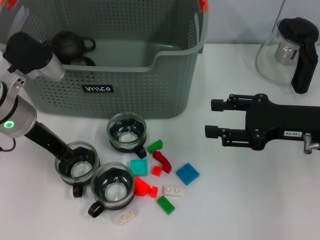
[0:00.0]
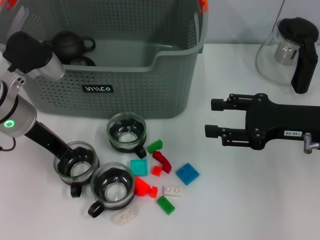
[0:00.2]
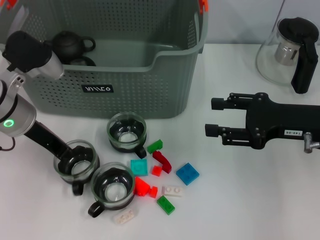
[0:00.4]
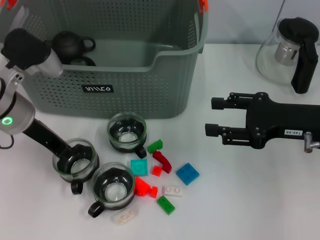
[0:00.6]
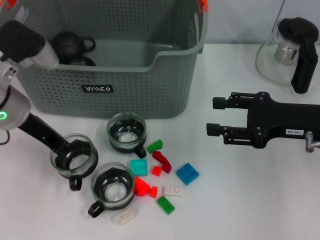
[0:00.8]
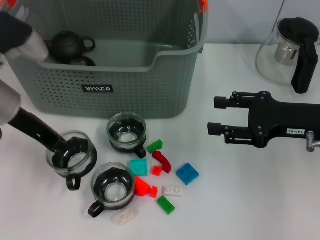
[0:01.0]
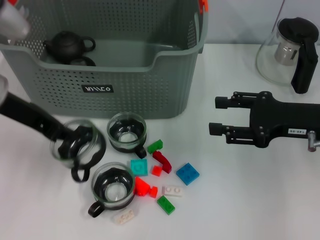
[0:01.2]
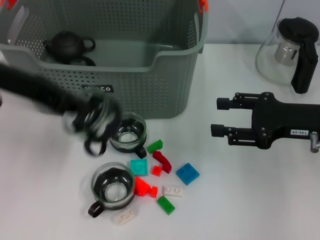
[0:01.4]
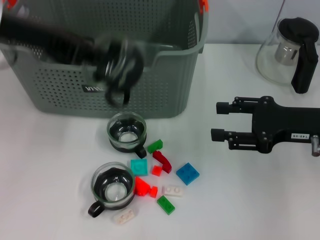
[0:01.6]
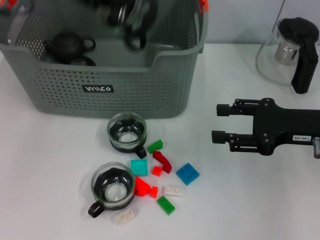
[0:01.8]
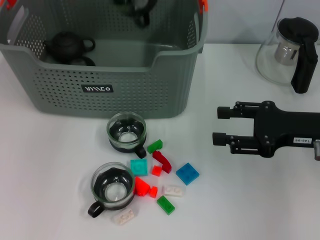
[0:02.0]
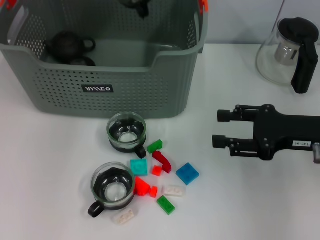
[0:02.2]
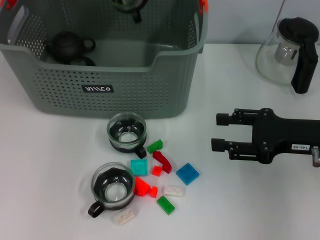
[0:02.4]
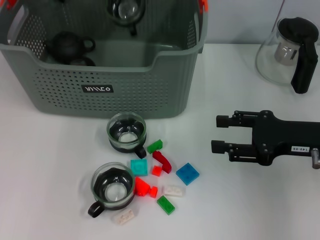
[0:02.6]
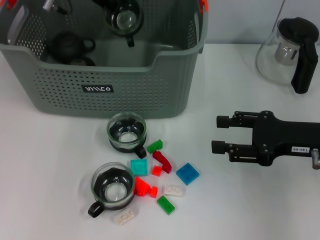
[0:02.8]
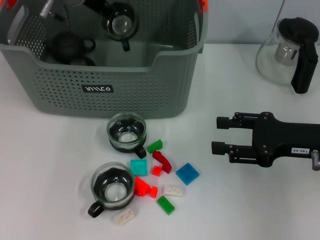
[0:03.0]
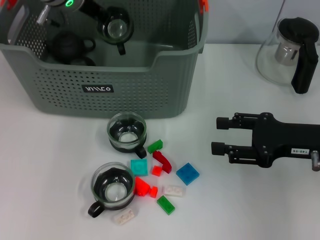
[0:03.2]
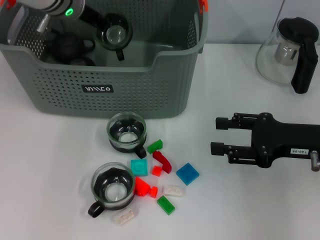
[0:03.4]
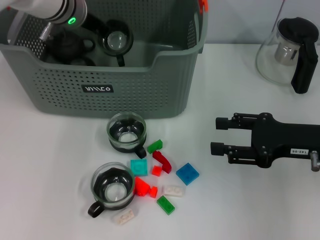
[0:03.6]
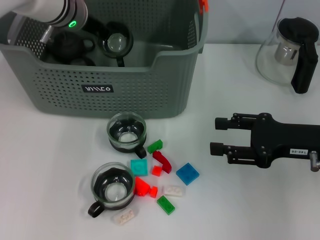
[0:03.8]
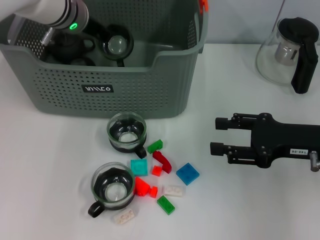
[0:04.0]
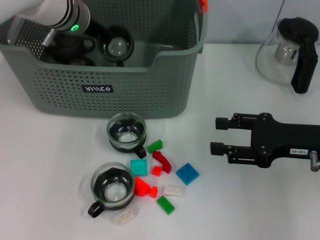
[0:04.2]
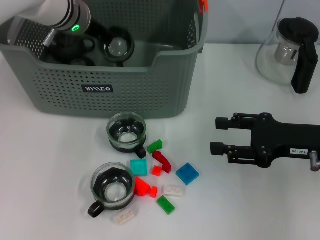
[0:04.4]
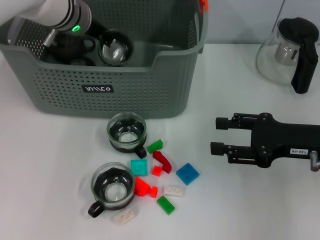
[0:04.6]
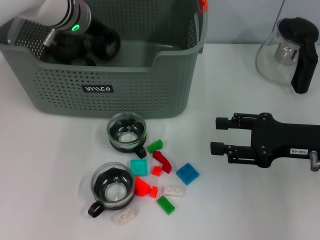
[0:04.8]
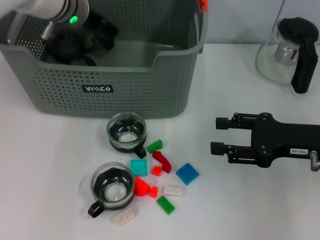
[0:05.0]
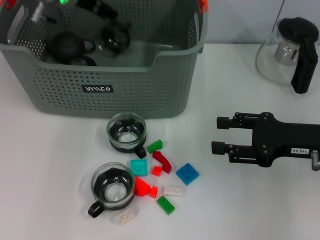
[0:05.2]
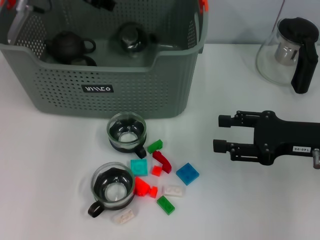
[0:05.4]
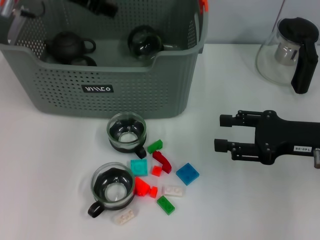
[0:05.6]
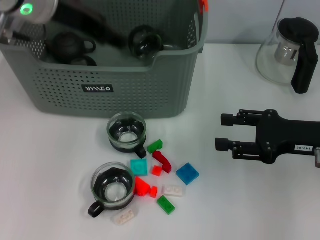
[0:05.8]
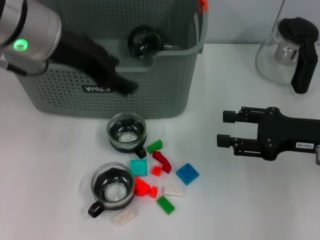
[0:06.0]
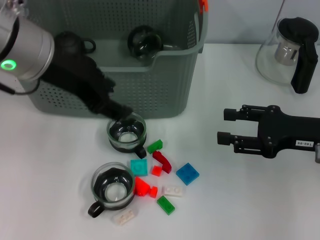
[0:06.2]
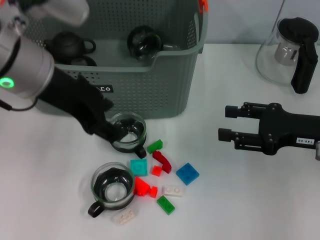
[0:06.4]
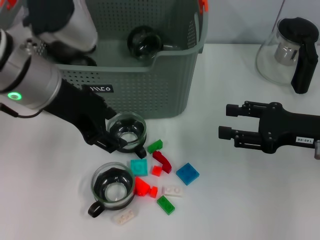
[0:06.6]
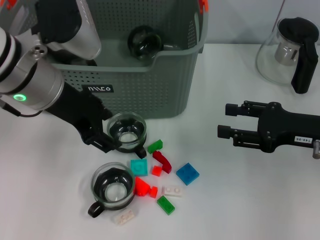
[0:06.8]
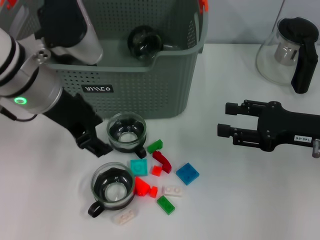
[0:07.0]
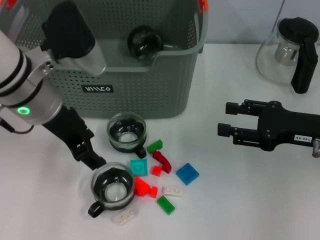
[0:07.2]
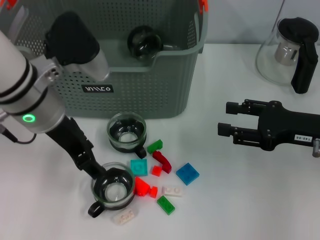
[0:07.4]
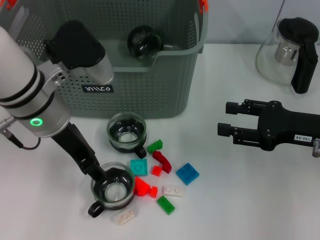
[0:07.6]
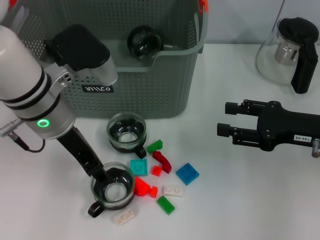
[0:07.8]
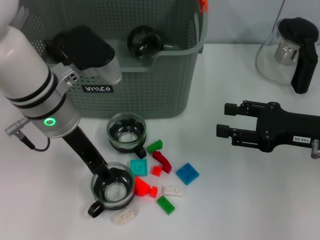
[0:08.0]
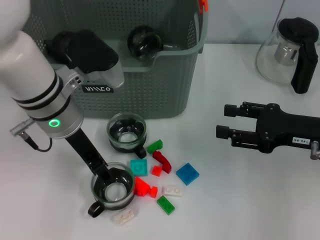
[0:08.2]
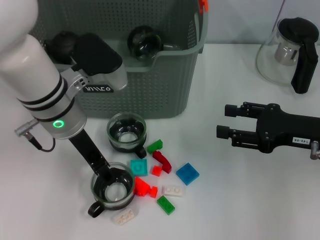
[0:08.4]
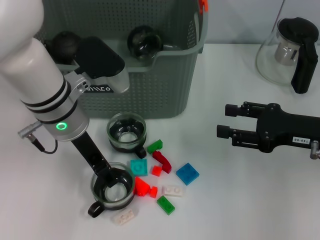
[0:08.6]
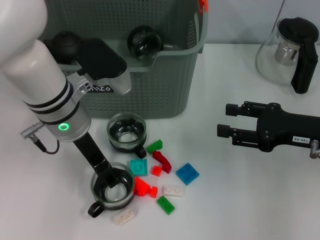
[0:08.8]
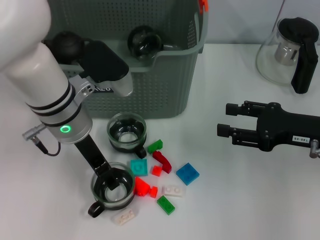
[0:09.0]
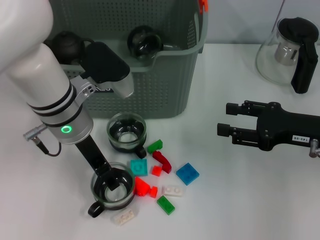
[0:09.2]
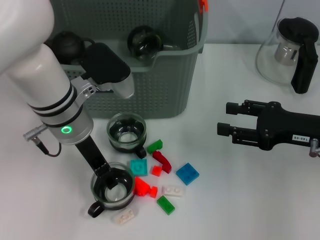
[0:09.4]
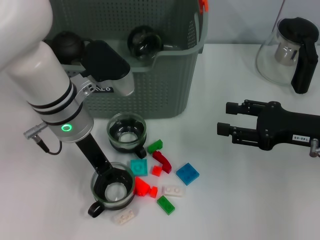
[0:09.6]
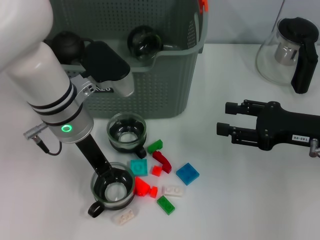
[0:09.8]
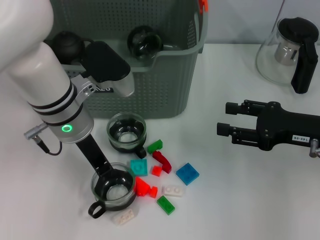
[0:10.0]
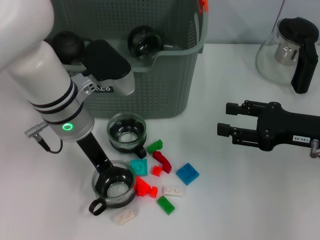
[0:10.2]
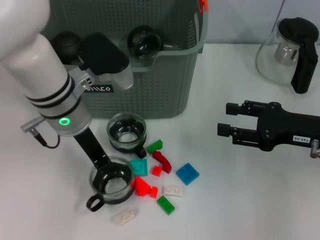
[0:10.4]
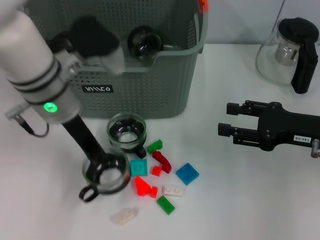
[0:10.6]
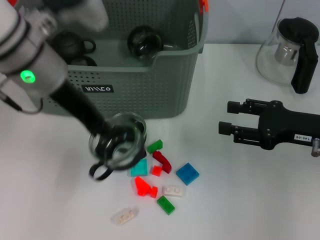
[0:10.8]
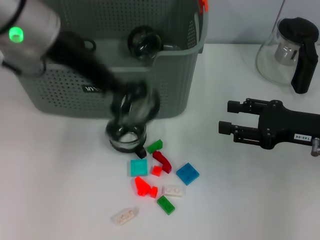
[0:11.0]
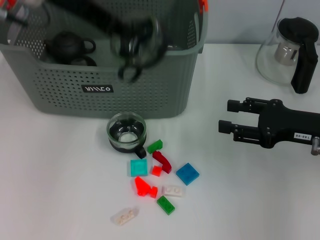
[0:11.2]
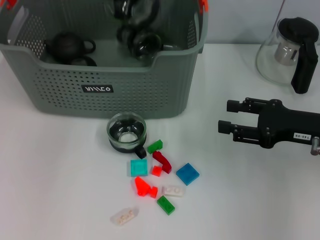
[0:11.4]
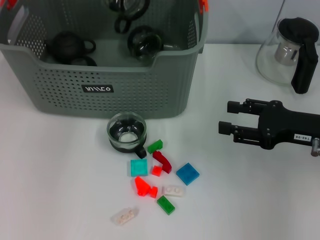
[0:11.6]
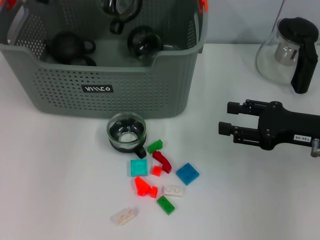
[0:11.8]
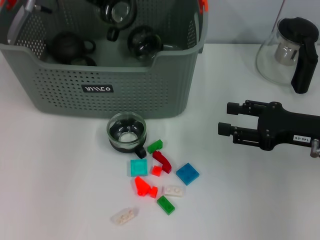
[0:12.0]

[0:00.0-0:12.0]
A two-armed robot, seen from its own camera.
Task of the whole recording: pick up the teacup on the table and place it into the storage bin, pick up the block on the table and place it into the storage bin.
Step, 0:00.6 to 0:04.6: Place the cup in the storage box with left gripper.
Step, 0:05.0 to 0:09.8: Grasp the cup with left gripper.
0:00.0 to 0:01.6: The left gripper goes some 15 cm upward.
0:01.6 to 0:03.0: The left gripper goes roughly 15 cm forward, to the right and downward.
0:03.0 to 0:04.4: The grippers stay close to where they were, moving slightly.
0:04.4 to 0:06.0: The left gripper heads backward and upward, covering roughly 15 cm, and opens up.
0:06.0 to 0:07.6: The left gripper travels downward by some 10 cm.
0:07.6 to 0:09.0: The grippers stay close to where they were, moving slightly.
0:09.0 to 0:10.4: The left gripper closes.
0:10.4 to 0:12.0: The left gripper heads forward and upward, covering some 15 cm.

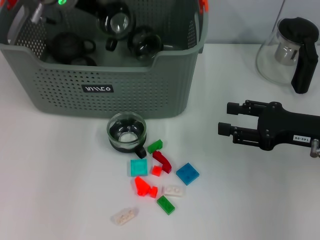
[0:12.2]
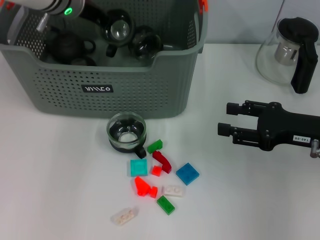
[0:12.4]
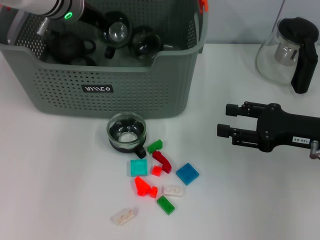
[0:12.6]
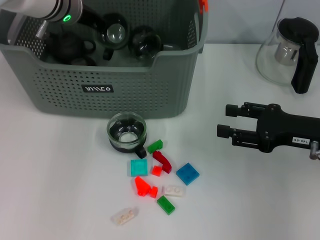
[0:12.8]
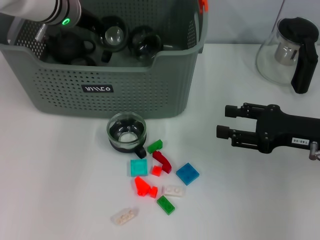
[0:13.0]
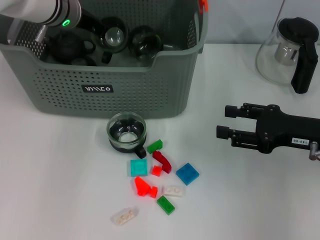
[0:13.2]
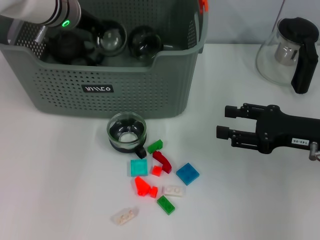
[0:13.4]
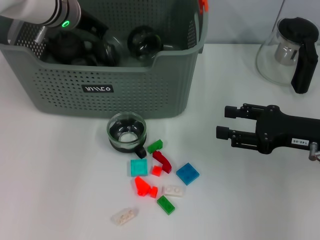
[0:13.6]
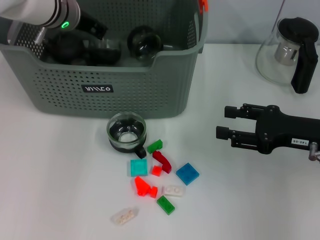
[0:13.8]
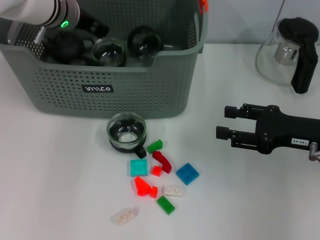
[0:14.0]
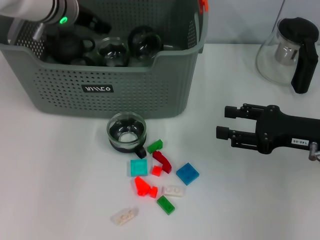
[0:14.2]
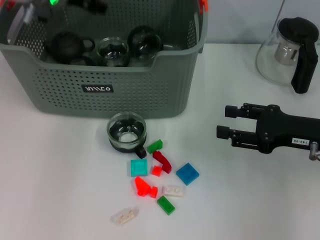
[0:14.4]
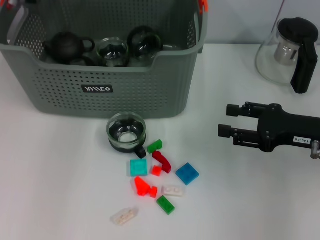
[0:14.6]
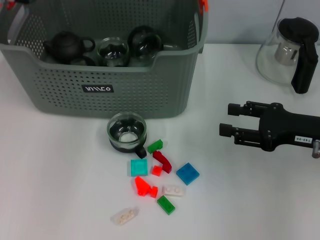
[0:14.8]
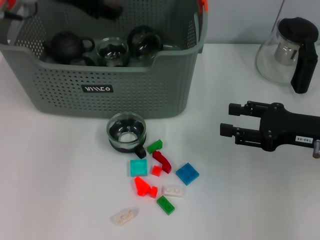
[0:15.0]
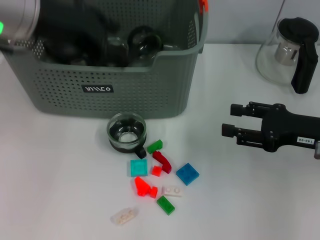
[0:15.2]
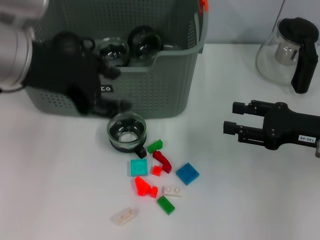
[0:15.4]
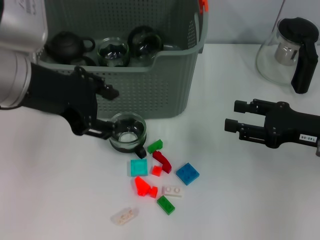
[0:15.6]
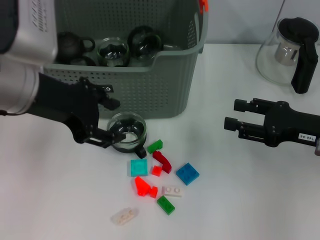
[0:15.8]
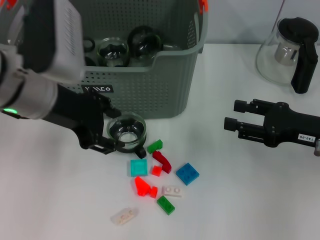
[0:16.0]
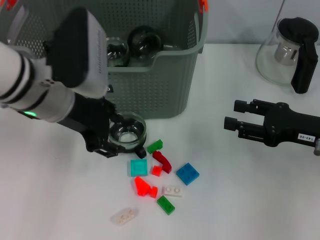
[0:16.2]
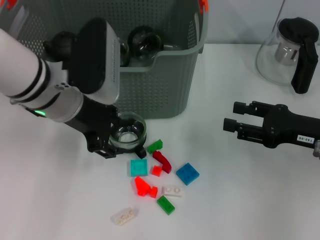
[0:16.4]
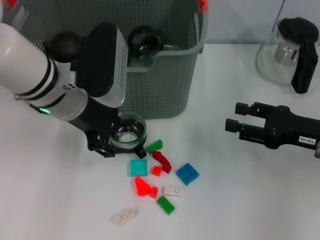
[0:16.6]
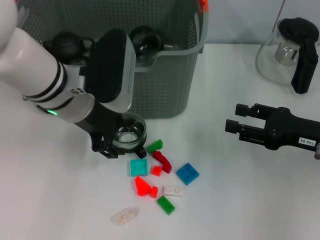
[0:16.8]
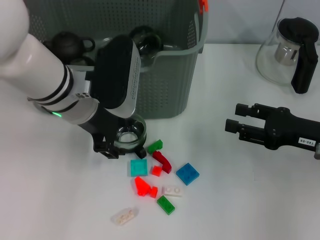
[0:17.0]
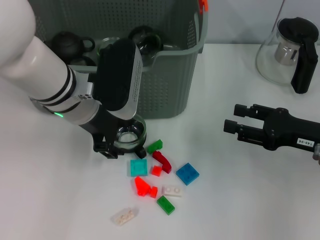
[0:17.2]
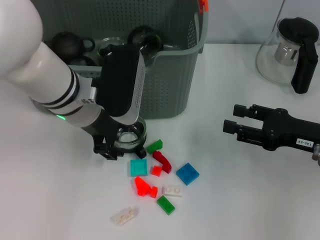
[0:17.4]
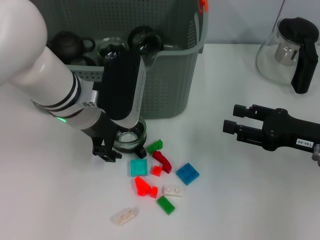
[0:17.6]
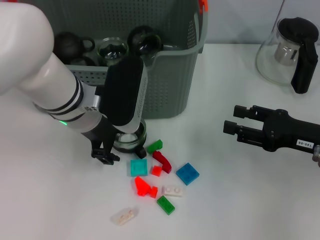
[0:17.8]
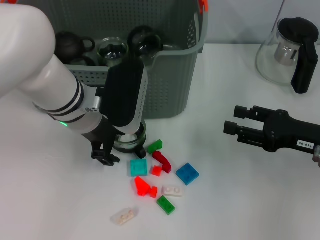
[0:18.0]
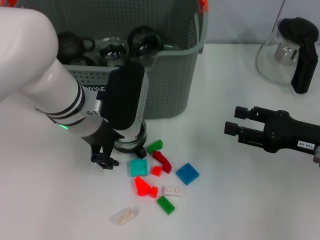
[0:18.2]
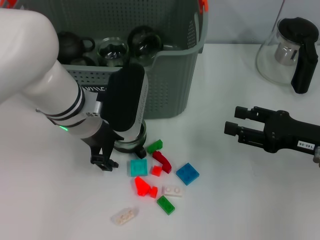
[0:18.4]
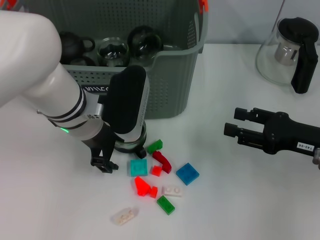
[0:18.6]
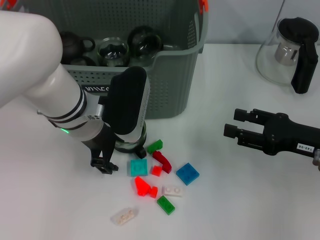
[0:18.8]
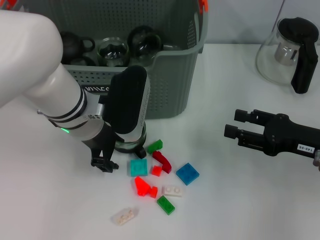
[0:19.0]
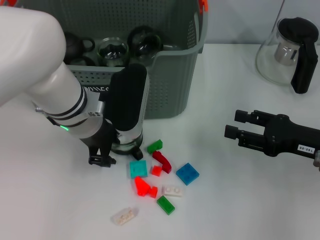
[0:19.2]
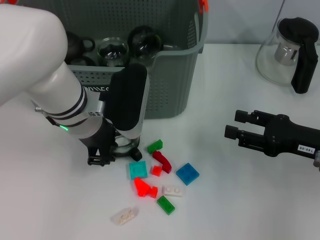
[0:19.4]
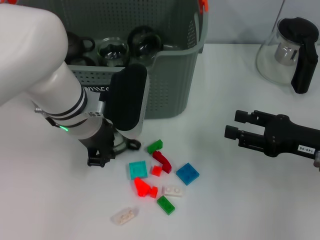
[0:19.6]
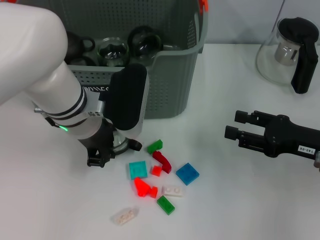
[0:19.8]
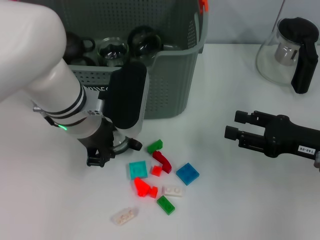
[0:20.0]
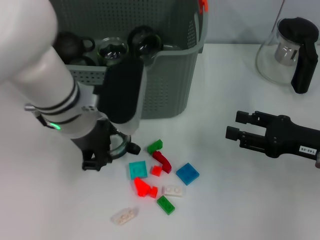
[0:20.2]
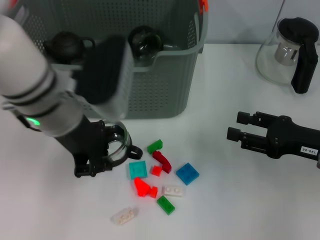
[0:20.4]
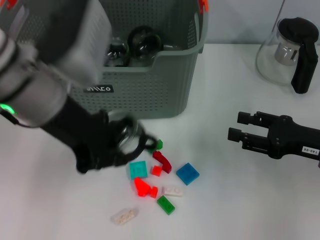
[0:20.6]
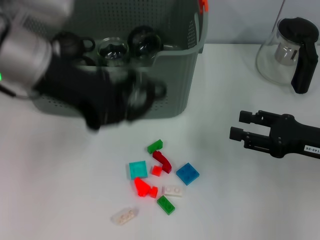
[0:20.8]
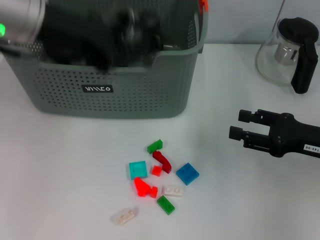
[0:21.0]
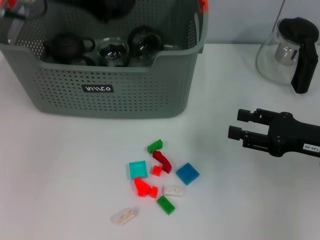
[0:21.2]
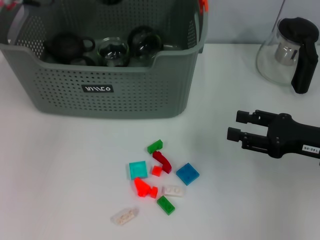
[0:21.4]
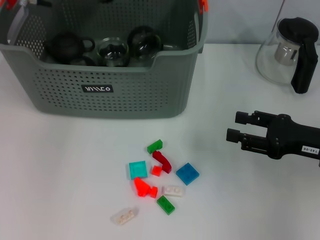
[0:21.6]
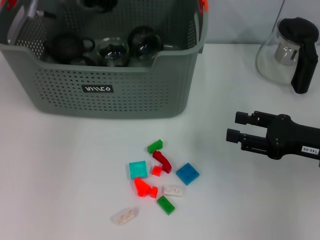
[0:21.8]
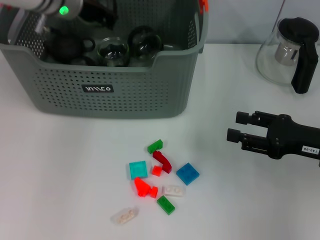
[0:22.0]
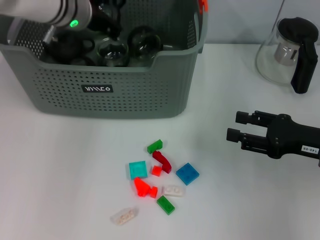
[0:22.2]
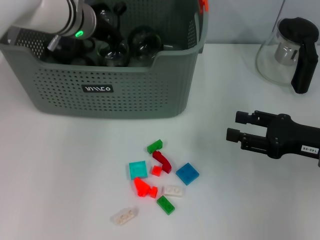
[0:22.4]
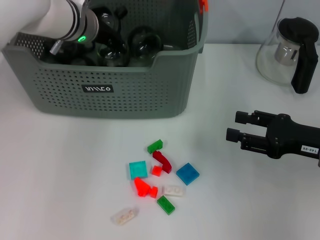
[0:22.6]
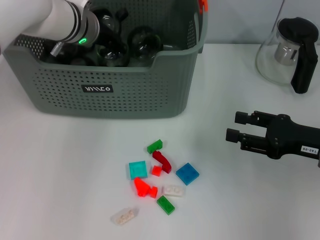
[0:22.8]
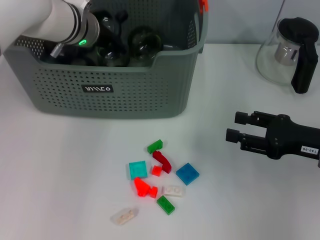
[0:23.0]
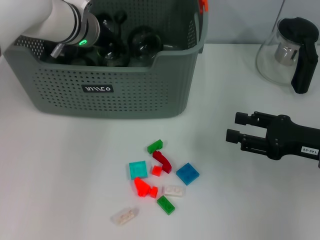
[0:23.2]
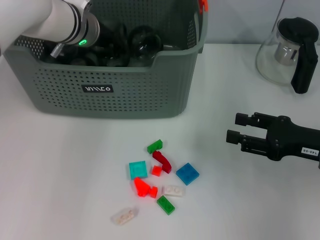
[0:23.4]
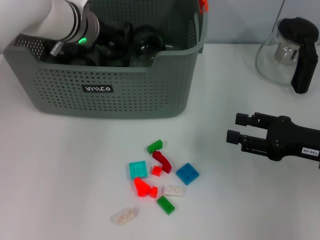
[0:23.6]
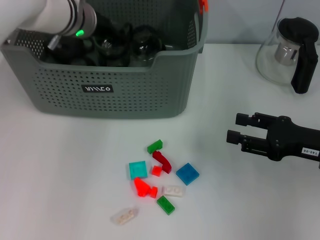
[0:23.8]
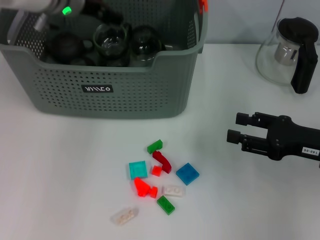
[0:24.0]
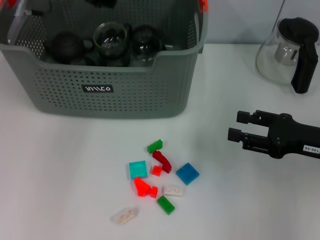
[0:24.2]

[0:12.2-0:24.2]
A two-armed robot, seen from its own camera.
Task of the whole recording: pick up the teacup on the table and place it into the storage bin, pick up the block on the table and place it into the storage bin.
Step, 0:14.0 to 0:19.8: Grasp the cup with left gripper.
Step, 0:20.0 to 0:23.6: Place the cup in the storage box with left gripper.
0:12.2 to 0:13.8: There are only small adjustments of the grippers.
0:13.8 to 0:15.2: The left gripper is displaced backward and upward by approximately 20 cm, and opens its fingers.
0:15.2 to 0:16.6: The left gripper shifts about 10 cm downward.
0:16.6 to 0:18.2: There are only small adjustments of the grippers.
0:18.2 to 0:19.8: The left gripper closes up.
0:19.8 to 0:21.2: The left gripper travels upward and to the left by roughly 15 cm.
0:21.2 to 0:22.6: The left gripper travels downward and forward by roughly 15 cm.
0:22.6 to 0:24.2: The left gripper goes approximately 10 cm upward, and opens.
